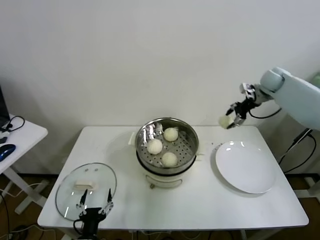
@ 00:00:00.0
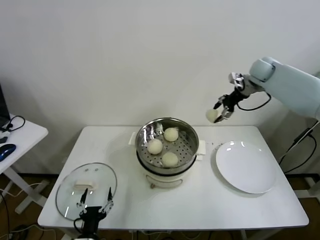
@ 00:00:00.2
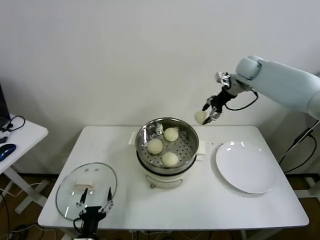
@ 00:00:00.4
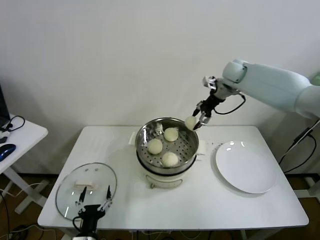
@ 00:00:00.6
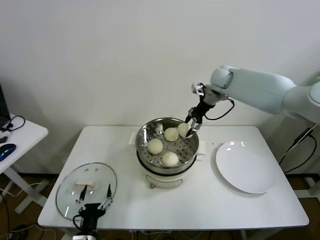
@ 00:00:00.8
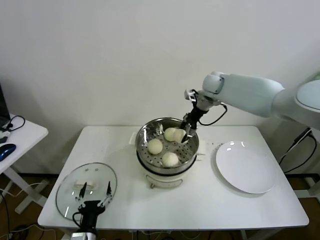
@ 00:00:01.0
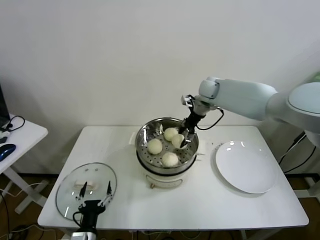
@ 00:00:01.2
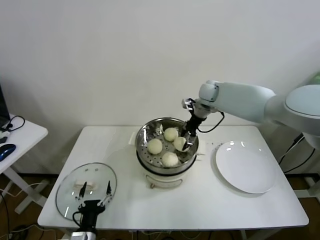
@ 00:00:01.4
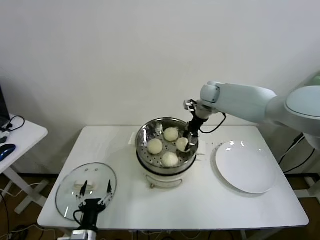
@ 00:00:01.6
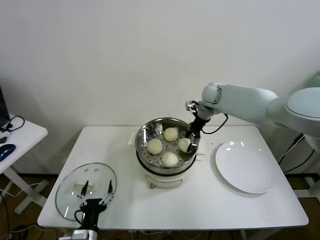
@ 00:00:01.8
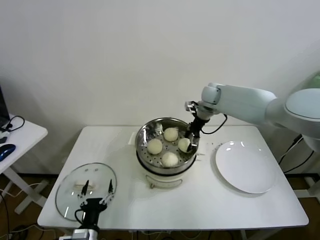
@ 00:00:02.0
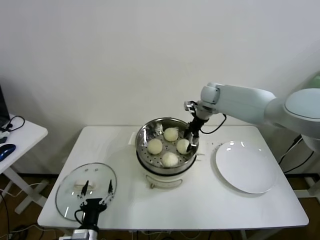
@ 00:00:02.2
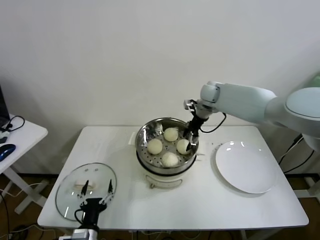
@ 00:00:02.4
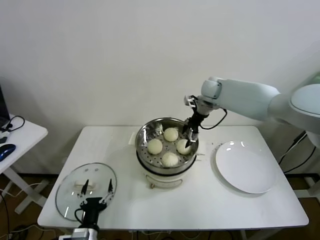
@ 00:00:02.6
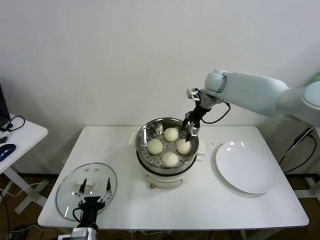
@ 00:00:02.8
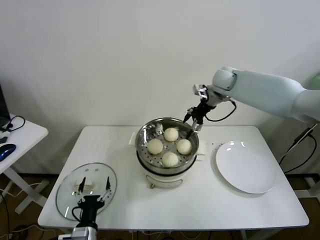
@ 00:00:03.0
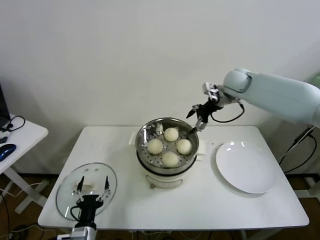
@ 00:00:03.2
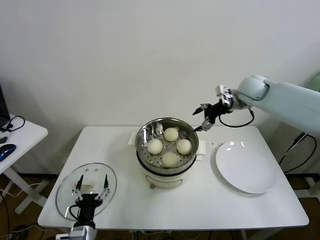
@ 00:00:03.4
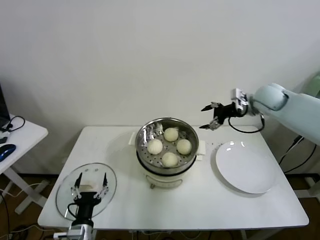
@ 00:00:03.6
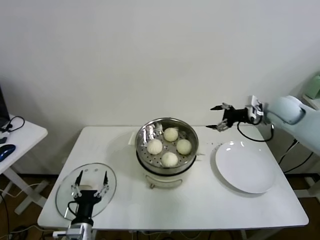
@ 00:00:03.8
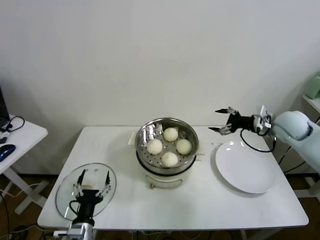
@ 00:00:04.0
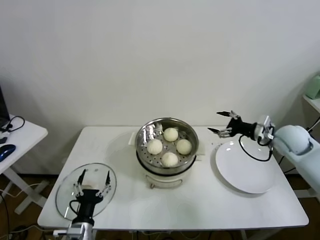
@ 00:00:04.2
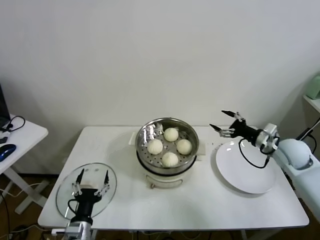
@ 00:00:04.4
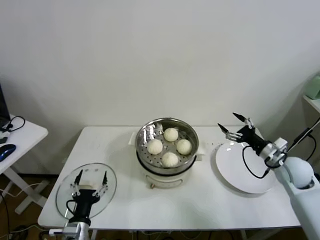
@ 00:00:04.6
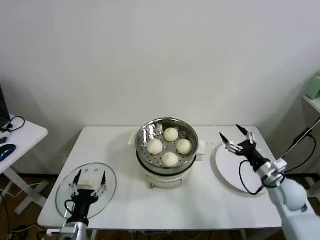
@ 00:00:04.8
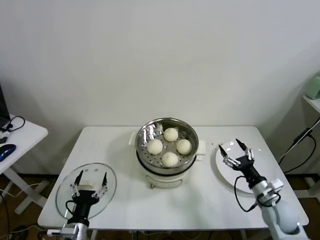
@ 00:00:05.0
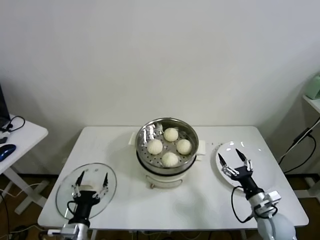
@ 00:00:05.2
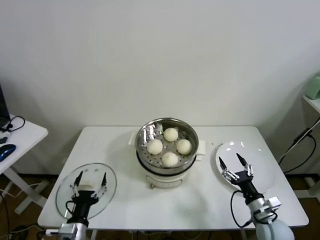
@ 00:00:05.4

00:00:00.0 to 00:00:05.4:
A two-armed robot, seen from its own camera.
Task of the whole recording: take steamed baozi put them in steamer.
Step, 00:00:00.0 to 00:00:02.2: Place the baozi on the steamer with right gripper.
00:00:00.0 to 00:00:01.4: The right gripper moves to the left, approximately 25 cm.
00:00:01.4 to 00:00:02.8: The right gripper opens.
00:00:02.8 to 00:00:04.0: The right gripper goes some 25 cm to the right and backward.
00:00:04.0 to 00:00:05.4: The right gripper shifts about 35 cm downward and backward.
